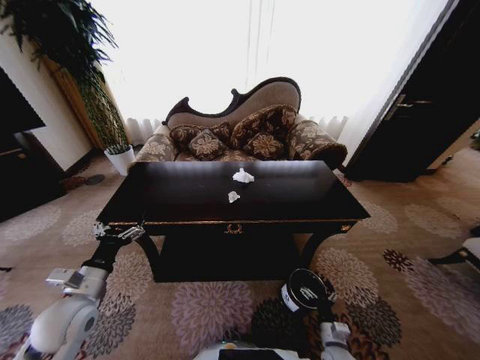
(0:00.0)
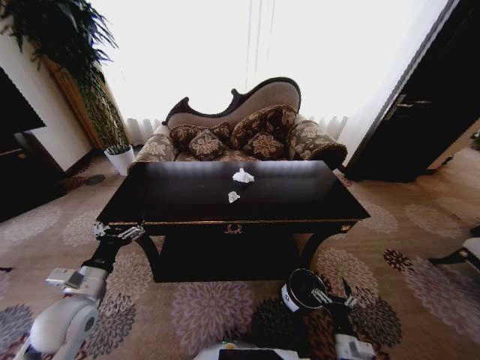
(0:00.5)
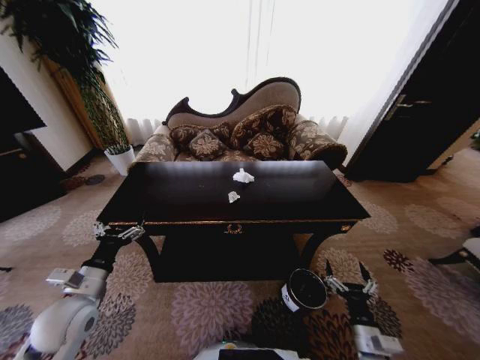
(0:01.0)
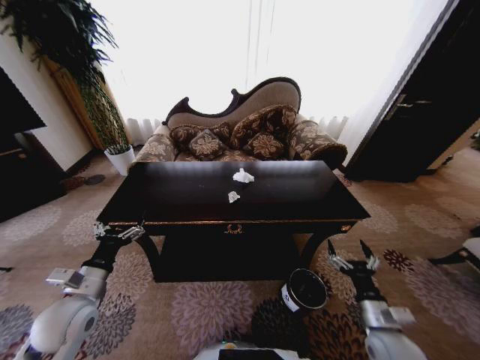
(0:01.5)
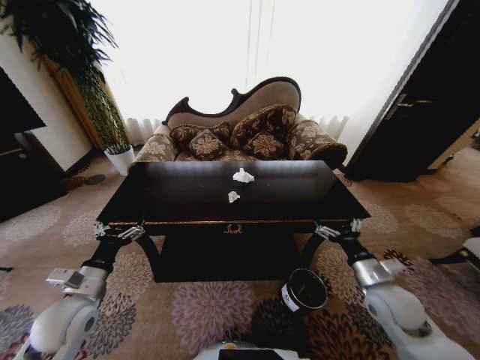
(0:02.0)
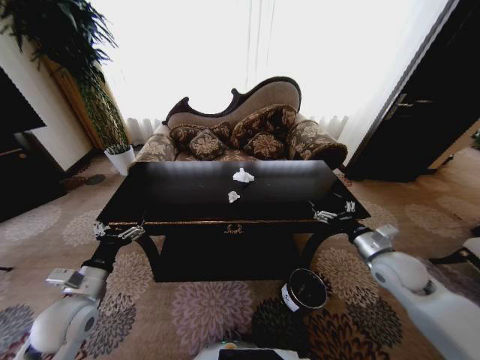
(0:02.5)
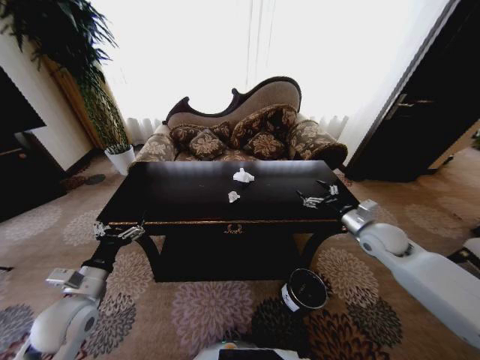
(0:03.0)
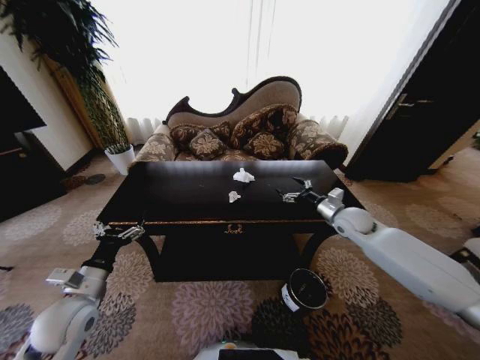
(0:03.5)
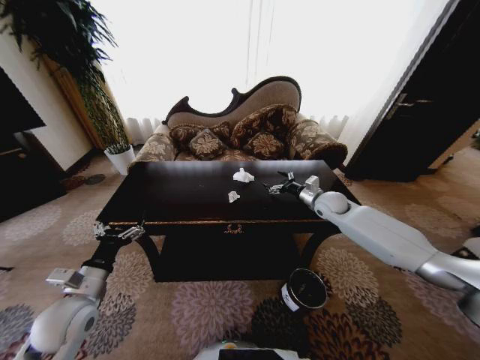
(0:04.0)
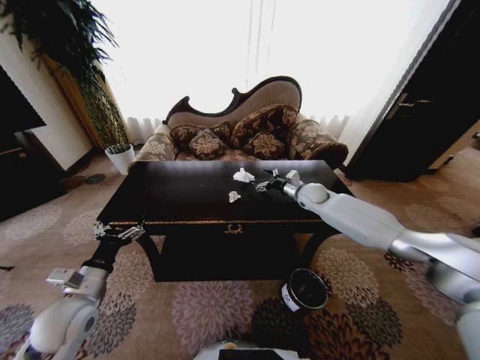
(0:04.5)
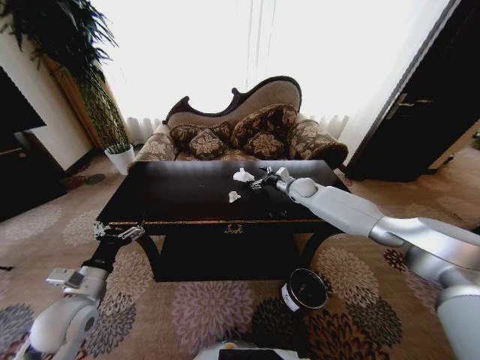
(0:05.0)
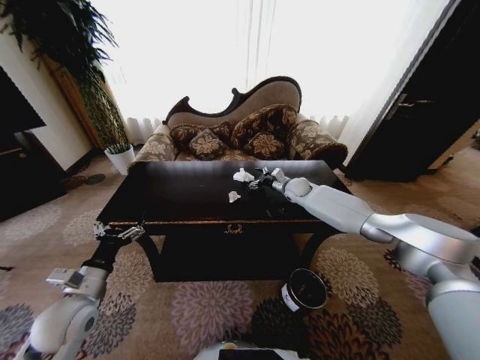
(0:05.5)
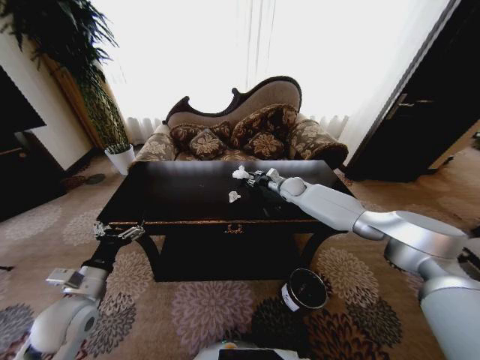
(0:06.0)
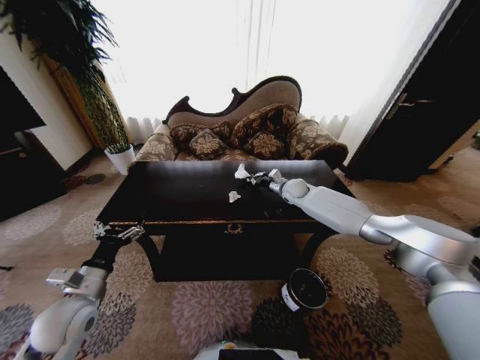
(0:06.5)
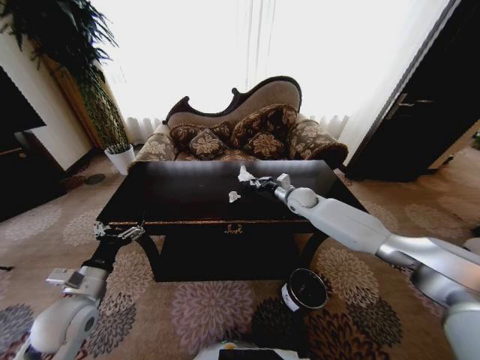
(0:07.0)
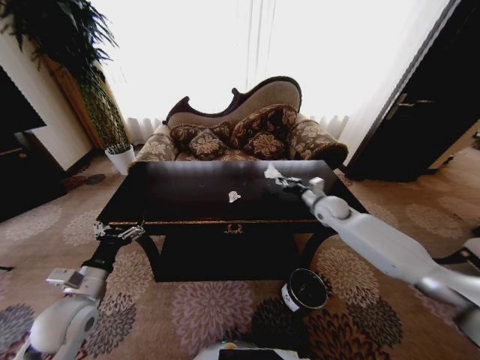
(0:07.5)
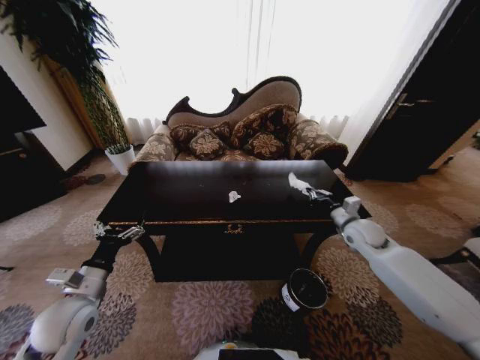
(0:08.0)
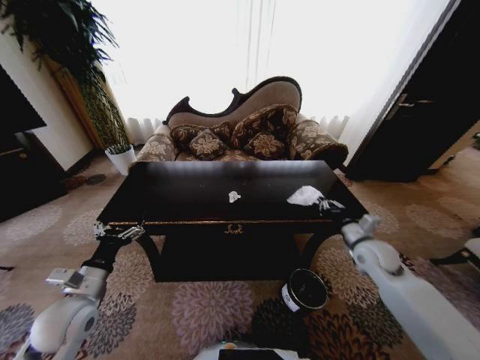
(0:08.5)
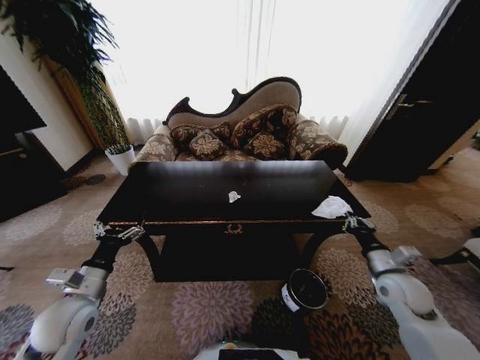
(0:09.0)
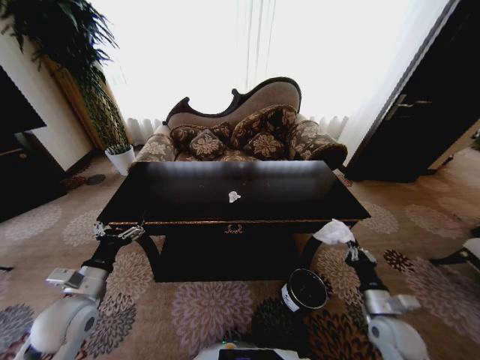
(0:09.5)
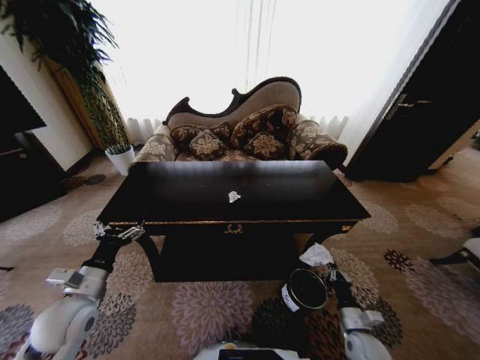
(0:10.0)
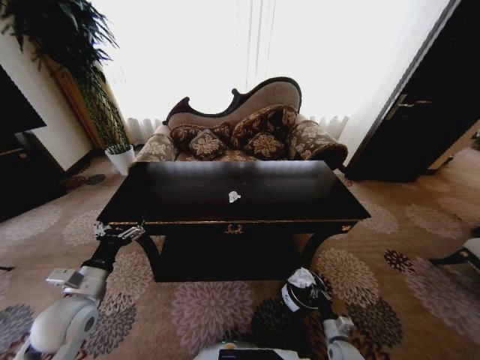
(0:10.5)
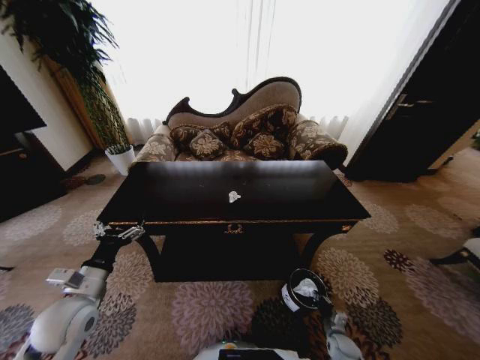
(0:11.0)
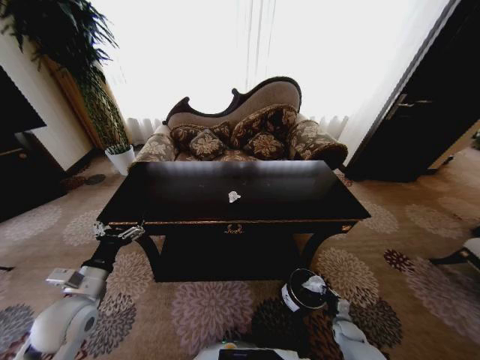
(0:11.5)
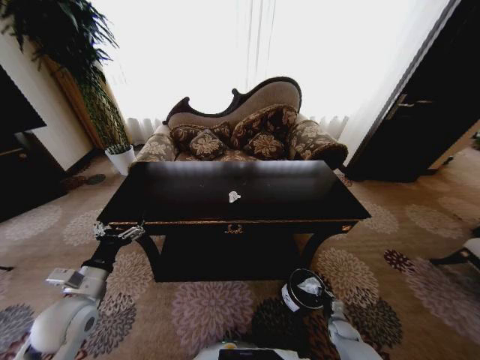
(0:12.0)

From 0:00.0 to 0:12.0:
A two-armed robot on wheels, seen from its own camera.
Task of the whole recording: Move to the front of the table and place the trash on the table into the trash bin.
From 0:00.0 to 0:02.0: The right gripper goes roughly 25 cm upward.
From 0:02.0 to 0:04.0: The right gripper goes some 30 cm forward.
From 0:04.0 to 0:06.0: The right gripper heads forward and to the left, covering roughly 15 cm, and closes up.
From 0:06.0 to 0:08.0: The right gripper travels backward and to the right by roughly 25 cm, and closes.
From 0:08.0 to 0:10.0: The right gripper travels backward and downward by approximately 35 cm.
From 0:10.0 to 0:12.0: The right gripper is displaced downward by some 15 cm.

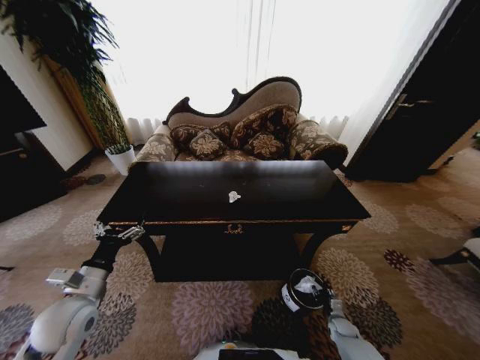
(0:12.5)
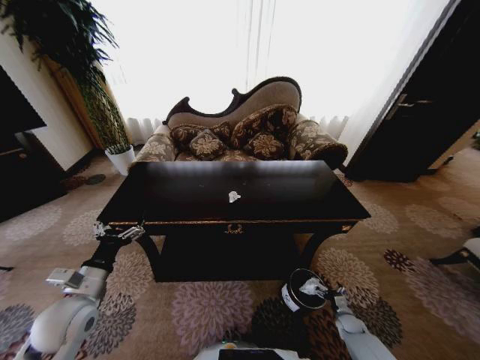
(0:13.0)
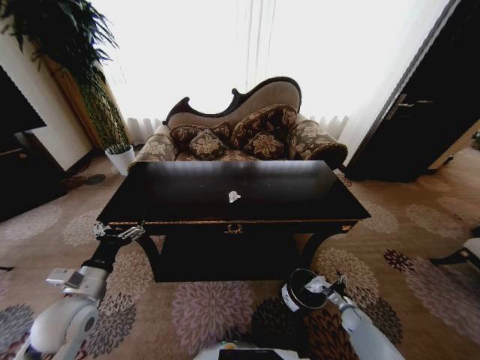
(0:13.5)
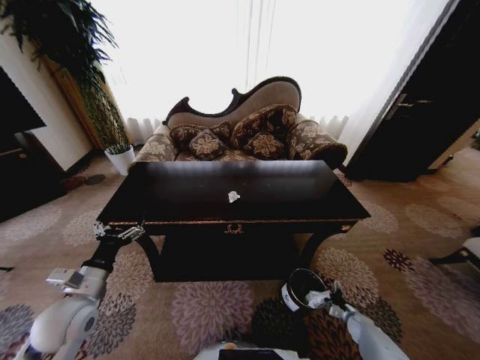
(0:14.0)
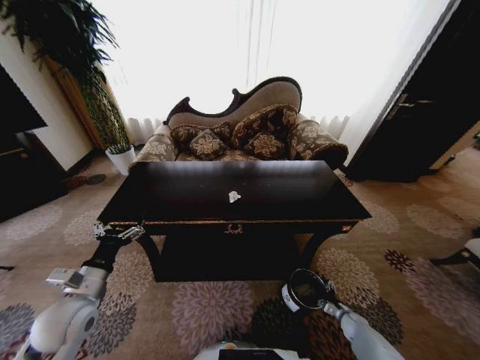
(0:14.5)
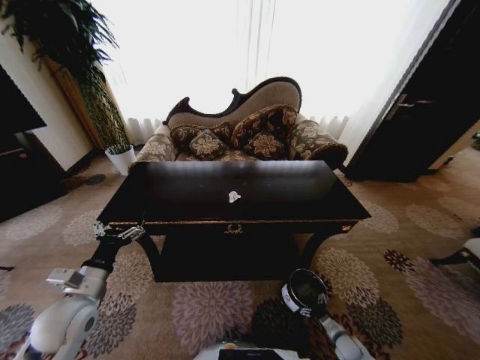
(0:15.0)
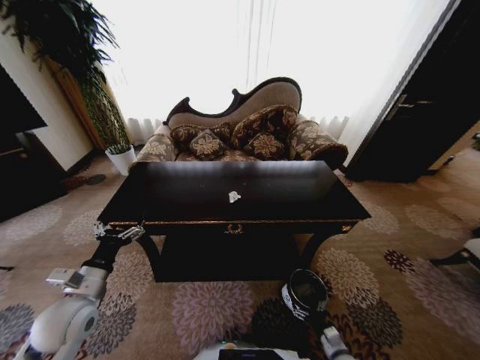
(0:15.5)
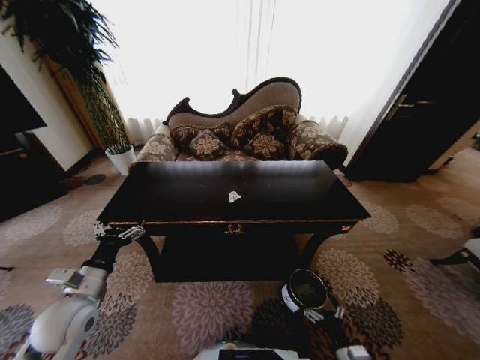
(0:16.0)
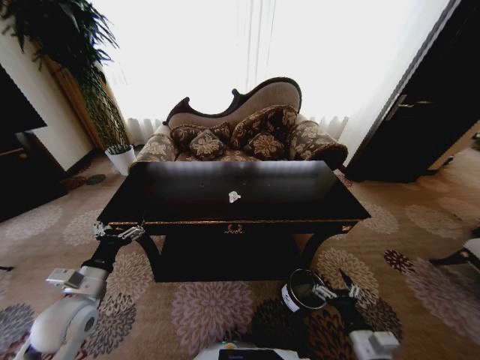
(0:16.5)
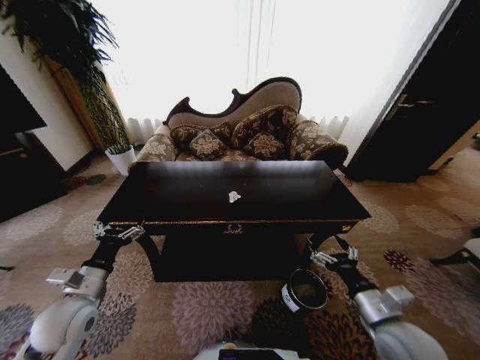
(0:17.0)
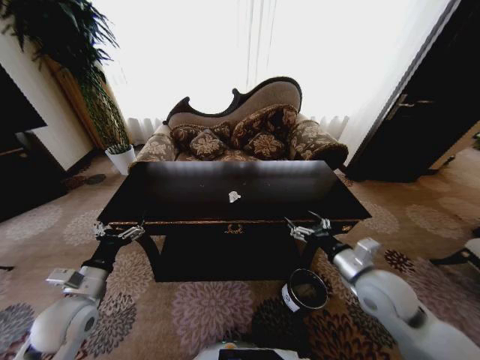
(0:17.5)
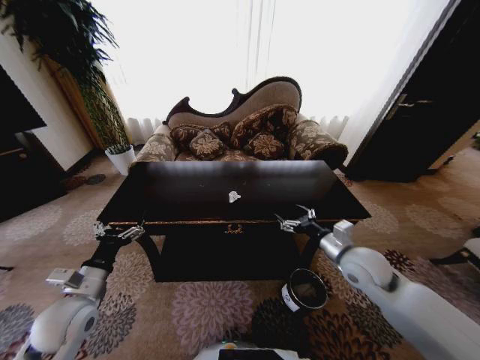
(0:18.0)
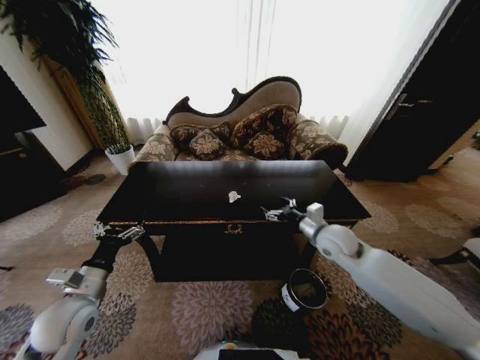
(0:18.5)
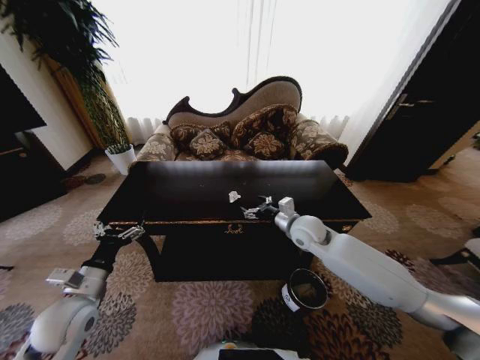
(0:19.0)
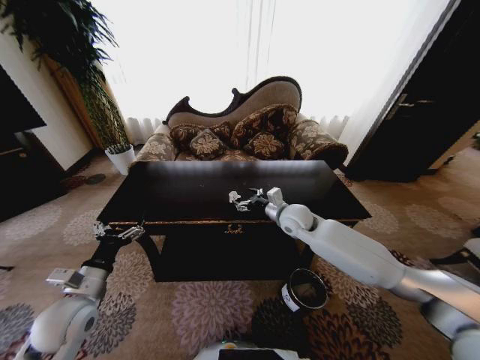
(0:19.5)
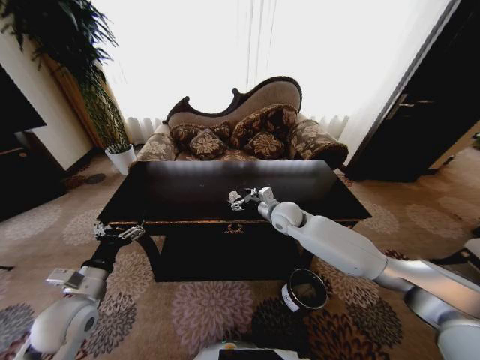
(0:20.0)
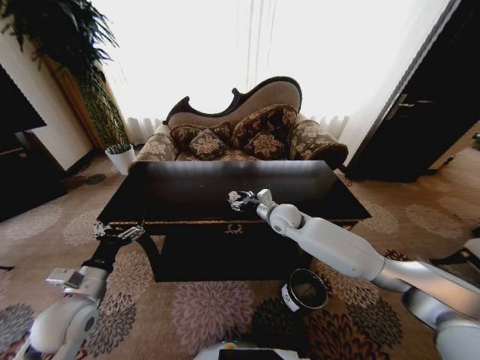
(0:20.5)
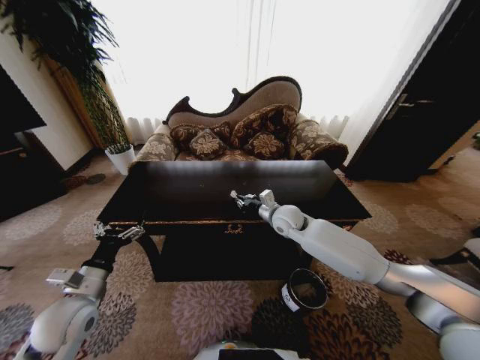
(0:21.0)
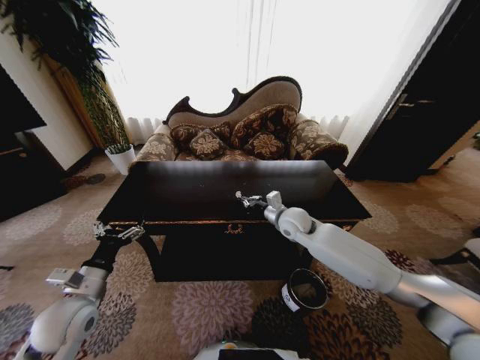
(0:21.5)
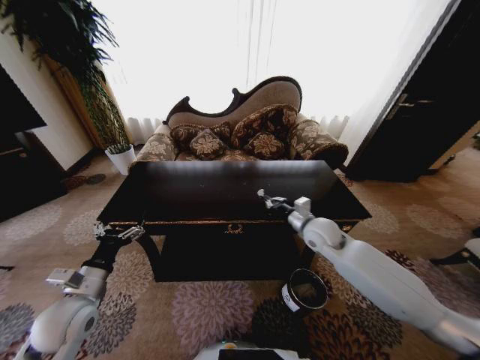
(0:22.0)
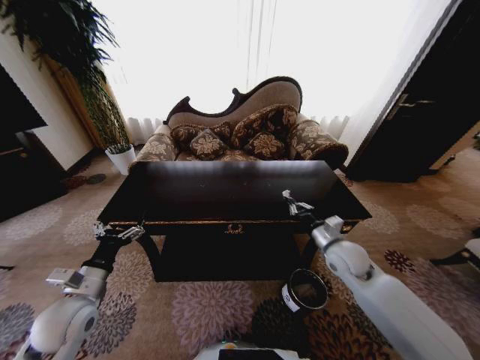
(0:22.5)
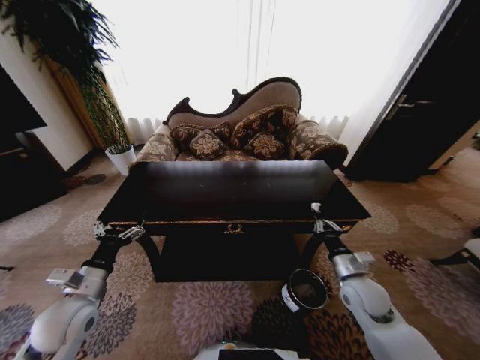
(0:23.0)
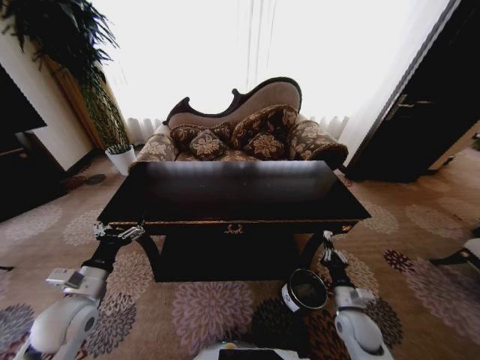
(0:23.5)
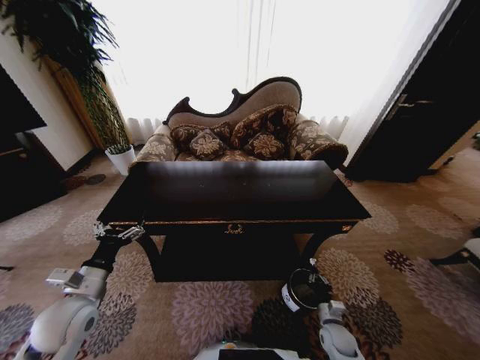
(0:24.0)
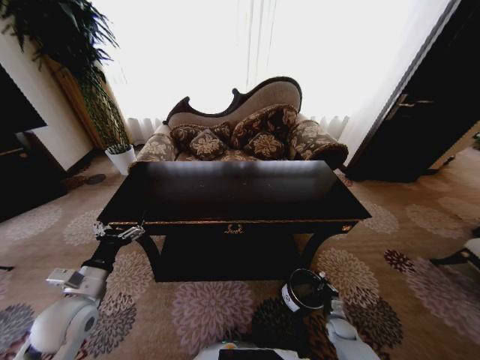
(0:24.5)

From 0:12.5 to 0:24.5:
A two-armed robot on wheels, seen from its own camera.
Task of the whole recording: Move to the front of the table and place the trash on the table into the trash bin.
From 0:12.5 to 0:14.5: The right gripper goes some 5 cm to the right, and opens.
From 0:14.5 to 0:16.5: The right gripper moves upward, to the left and backward, about 35 cm.
From 0:16.5 to 0:18.5: The right gripper travels forward and upward by roughly 30 cm.
From 0:18.5 to 0:20.5: The right gripper moves to the left and forward, about 15 cm.
From 0:20.5 to 0:22.5: The right gripper travels to the right and backward by about 20 cm, and closes its fingers.
From 0:22.5 to 0:24.5: The right gripper moves downward, about 35 cm.

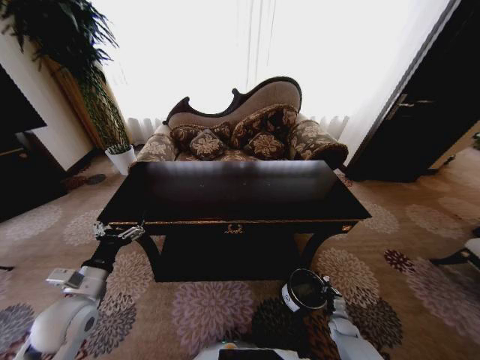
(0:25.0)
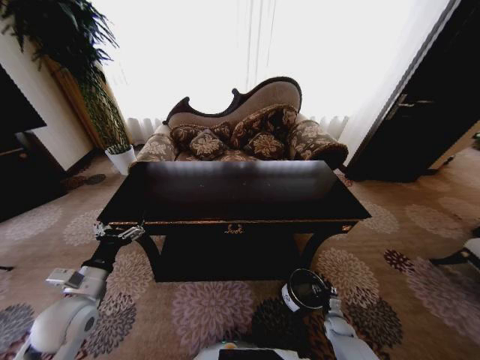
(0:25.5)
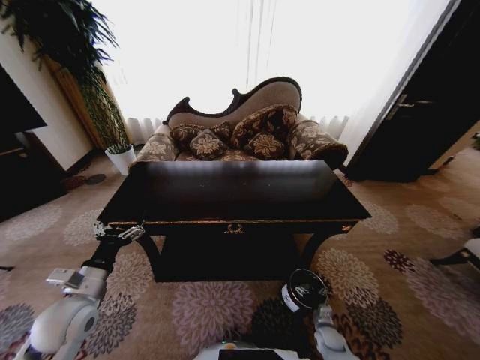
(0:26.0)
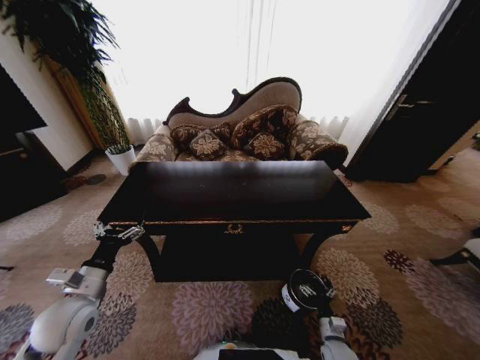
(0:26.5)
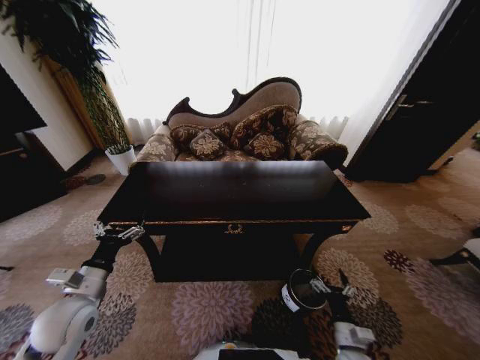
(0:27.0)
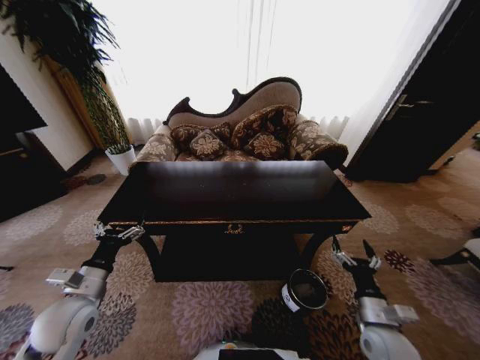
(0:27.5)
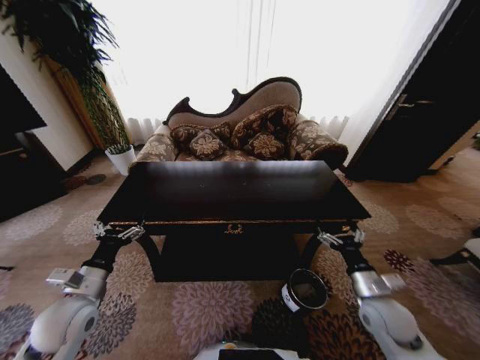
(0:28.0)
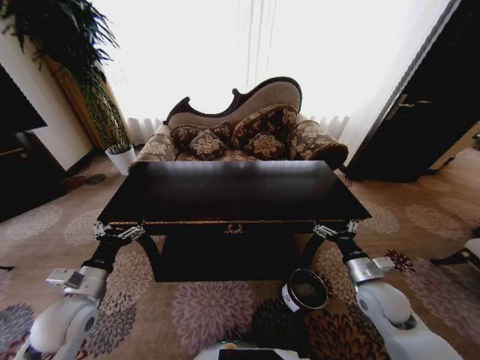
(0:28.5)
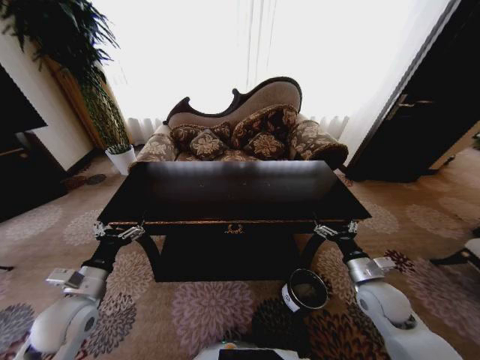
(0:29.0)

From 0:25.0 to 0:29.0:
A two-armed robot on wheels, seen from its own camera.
Task of the whole recording: Move to the front of the table and place the trash on the table into the trash bin.
From 0:25.0 to 0:27.0: The right gripper moves upward, to the left and backward, roughly 25 cm, and opens up.
From 0:27.0 to 0:29.0: The right gripper travels upward and forward by about 20 cm.
